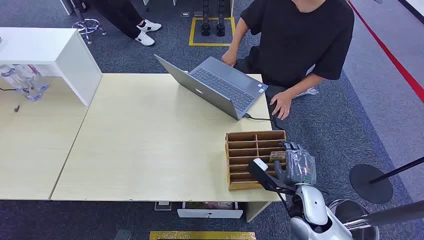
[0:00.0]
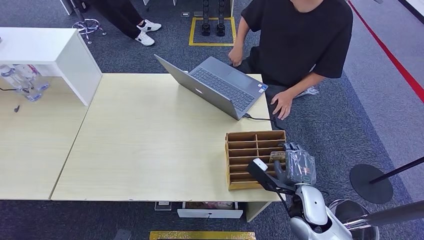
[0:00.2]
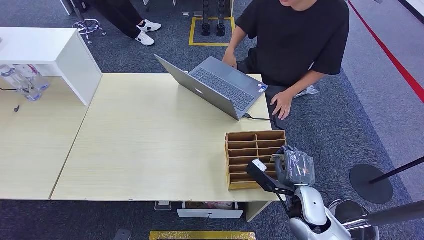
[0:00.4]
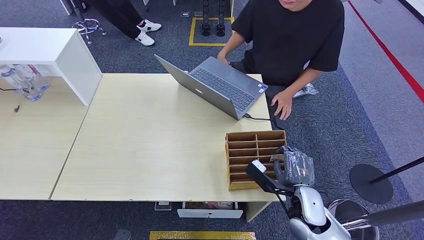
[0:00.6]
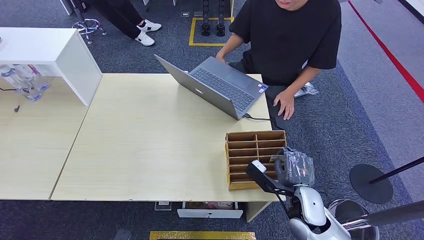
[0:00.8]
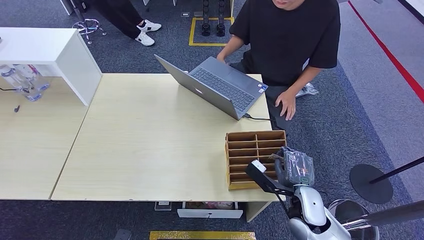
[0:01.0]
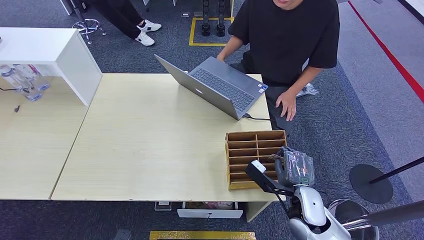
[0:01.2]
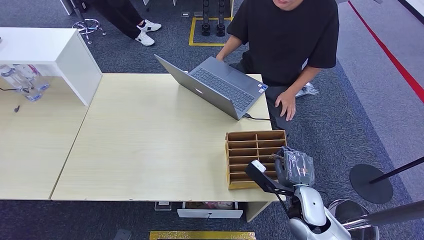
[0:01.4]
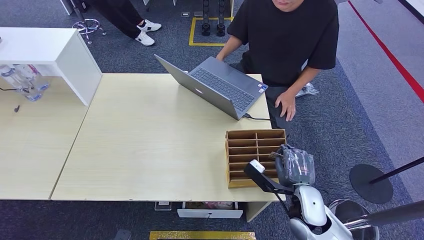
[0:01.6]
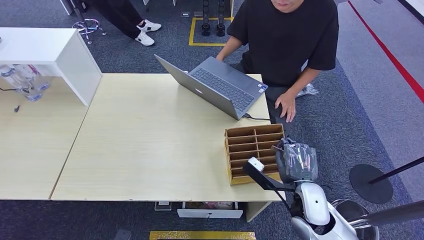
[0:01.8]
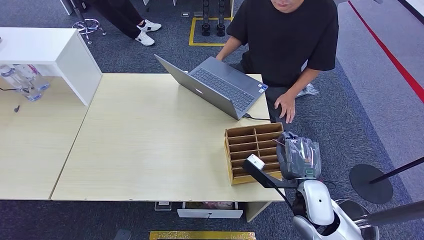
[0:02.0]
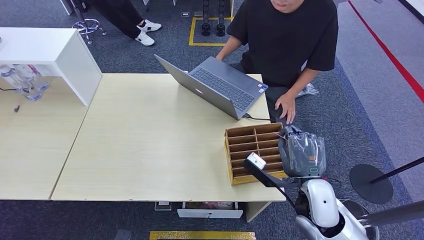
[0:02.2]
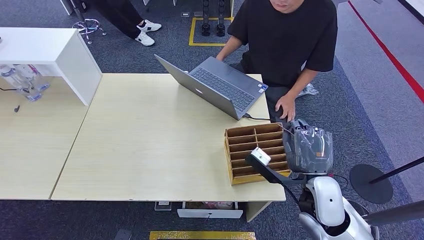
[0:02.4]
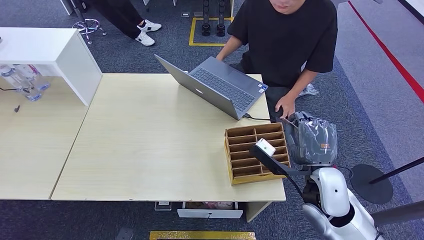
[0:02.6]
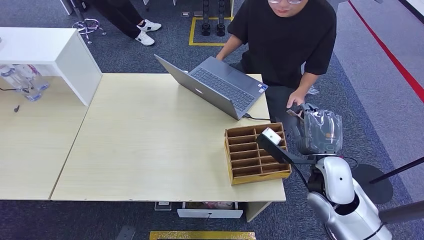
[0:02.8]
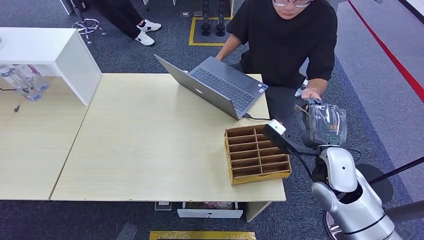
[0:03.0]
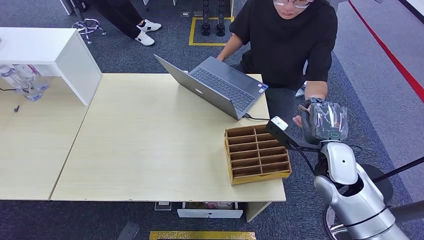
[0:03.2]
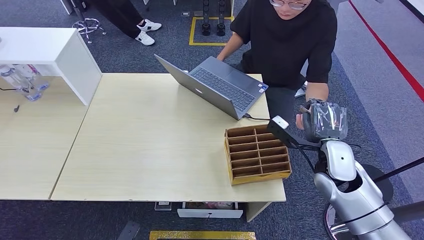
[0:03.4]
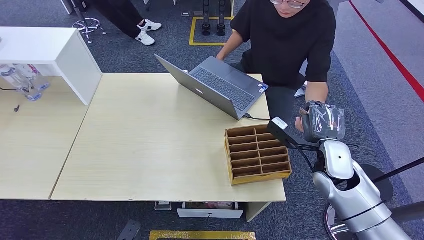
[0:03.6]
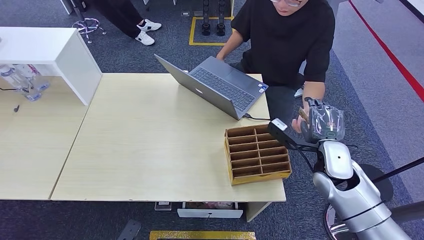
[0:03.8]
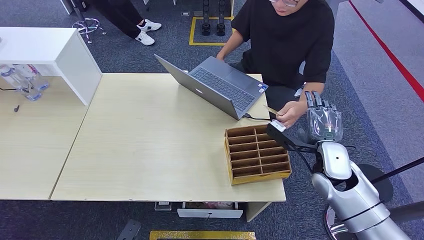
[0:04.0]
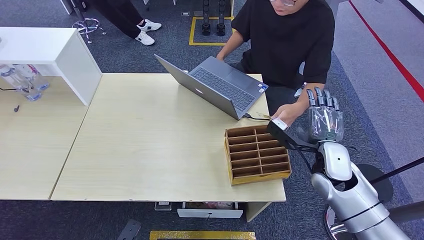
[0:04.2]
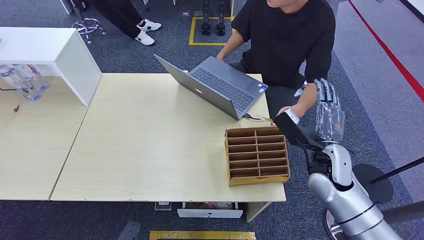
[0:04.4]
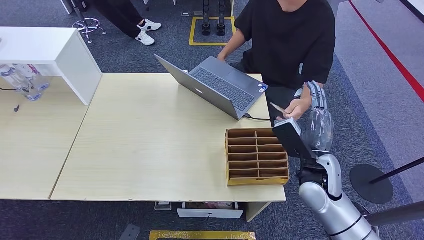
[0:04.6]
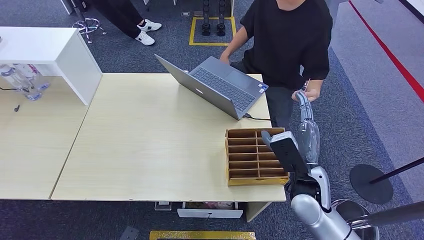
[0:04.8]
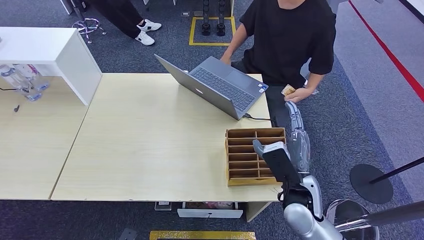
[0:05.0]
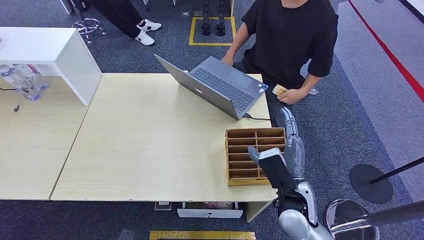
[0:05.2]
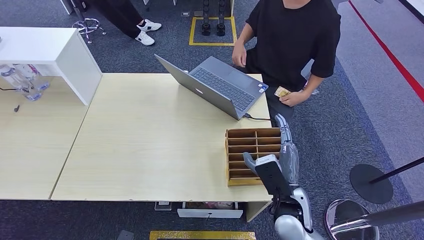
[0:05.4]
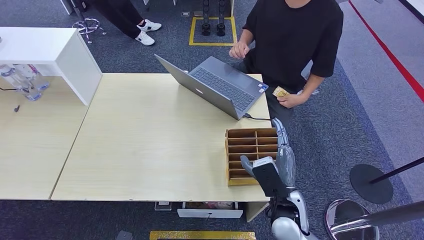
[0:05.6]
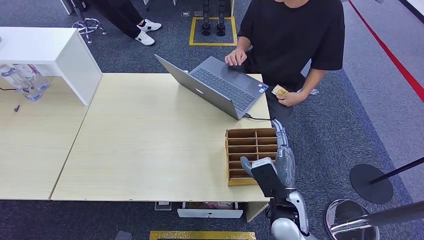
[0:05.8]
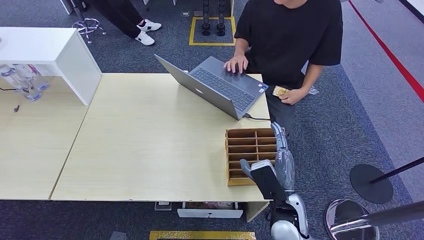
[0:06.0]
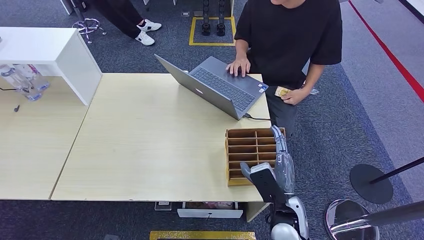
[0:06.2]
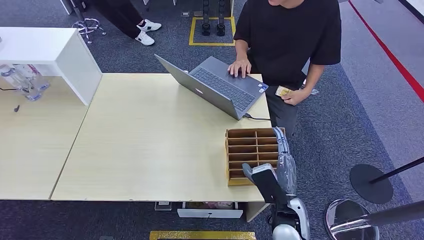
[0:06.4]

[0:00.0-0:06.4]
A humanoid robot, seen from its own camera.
Step, 0:00.0 to 0:02.4: Pick up the room card from the card holder.
Step, 0:02.6 to 0:06.2: Hand the room card to the target.
0:01.6 to 0:03.2: The right hand shifts about 15 cm upward, forward and to the right.
0:03.2 to 0:04.8: The right hand goes about 5 cm to the left.
0:04.8 to 0:06.4: The right hand goes roughly 10 cm downward and backward.
